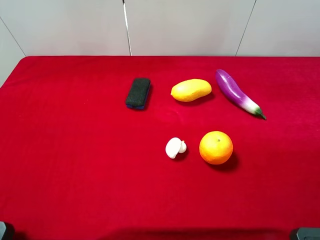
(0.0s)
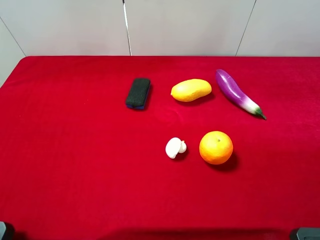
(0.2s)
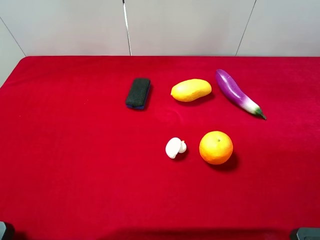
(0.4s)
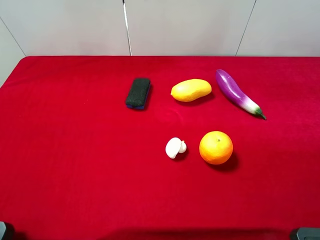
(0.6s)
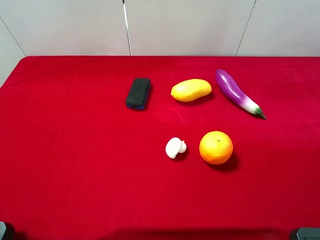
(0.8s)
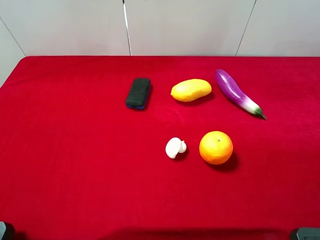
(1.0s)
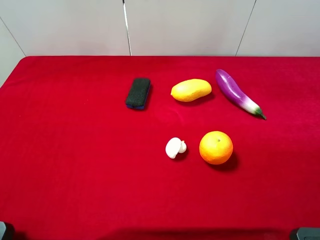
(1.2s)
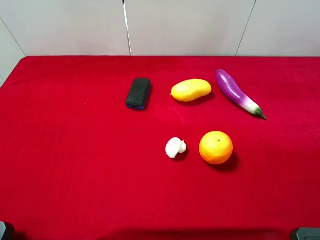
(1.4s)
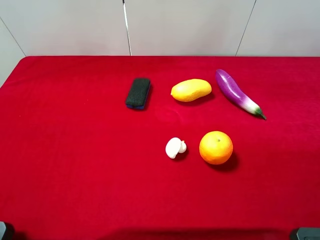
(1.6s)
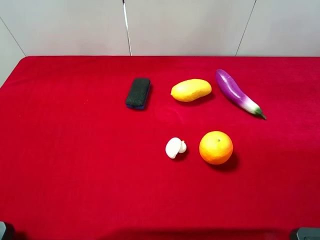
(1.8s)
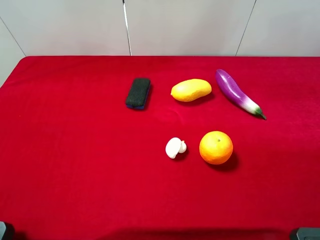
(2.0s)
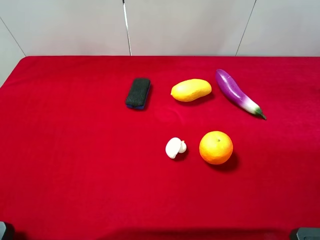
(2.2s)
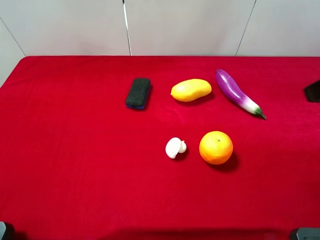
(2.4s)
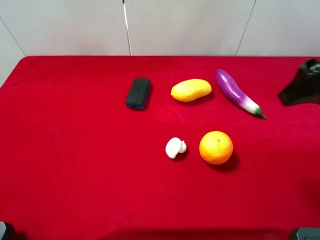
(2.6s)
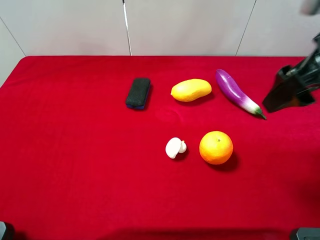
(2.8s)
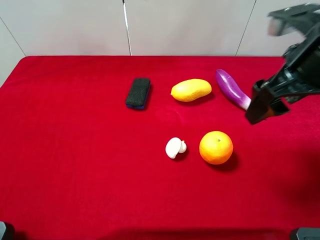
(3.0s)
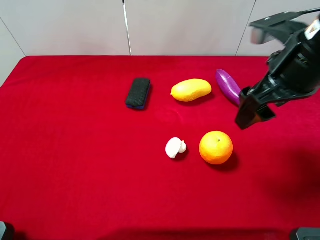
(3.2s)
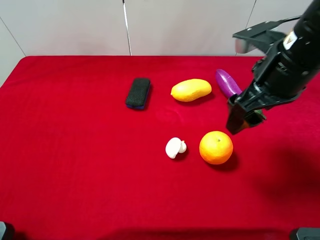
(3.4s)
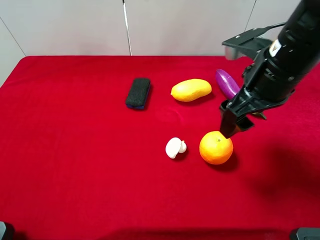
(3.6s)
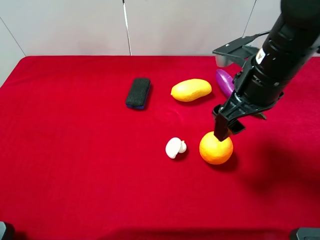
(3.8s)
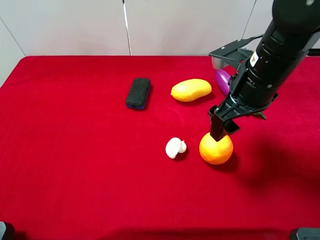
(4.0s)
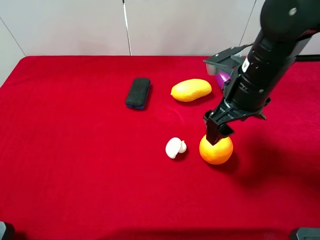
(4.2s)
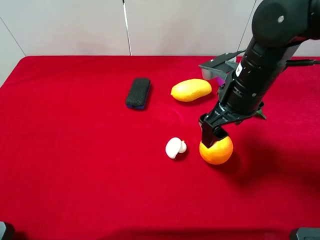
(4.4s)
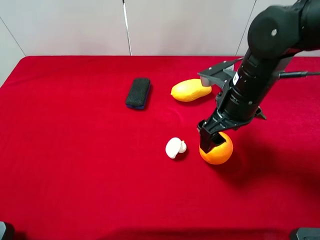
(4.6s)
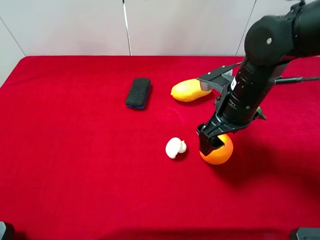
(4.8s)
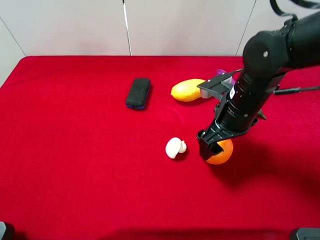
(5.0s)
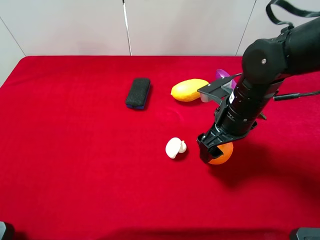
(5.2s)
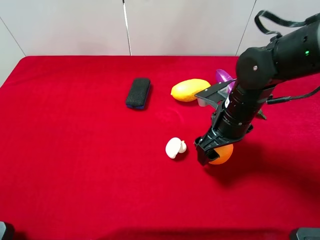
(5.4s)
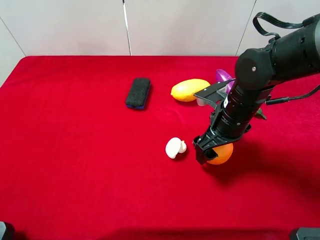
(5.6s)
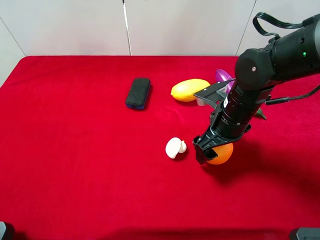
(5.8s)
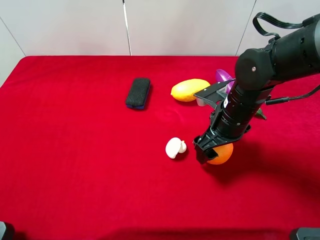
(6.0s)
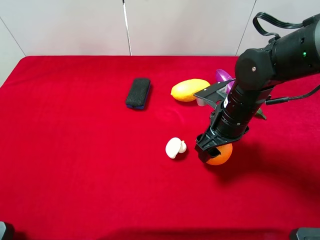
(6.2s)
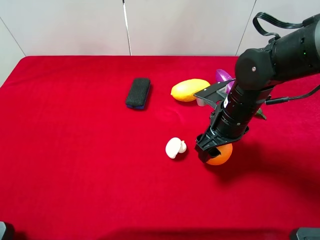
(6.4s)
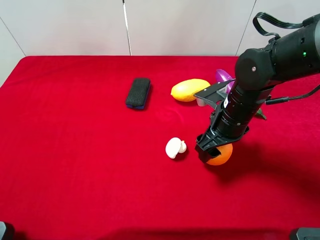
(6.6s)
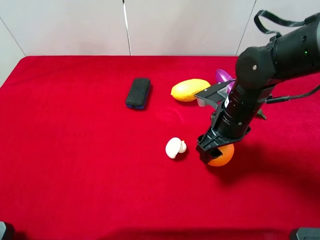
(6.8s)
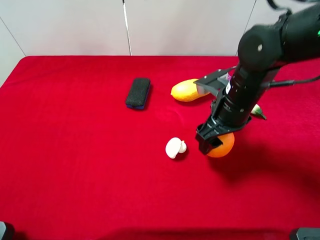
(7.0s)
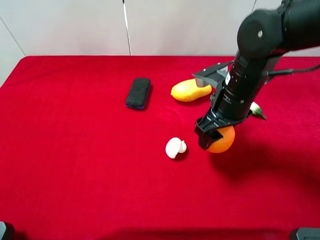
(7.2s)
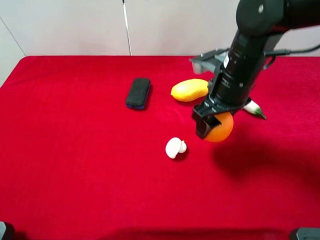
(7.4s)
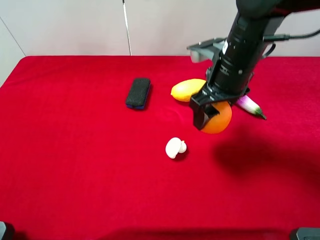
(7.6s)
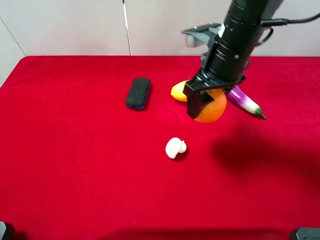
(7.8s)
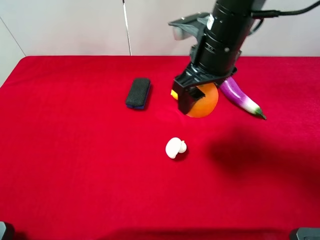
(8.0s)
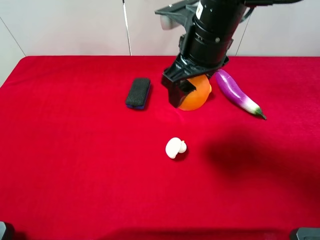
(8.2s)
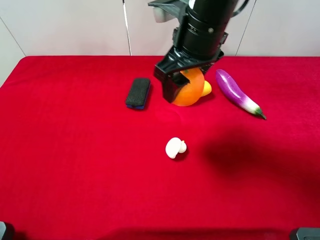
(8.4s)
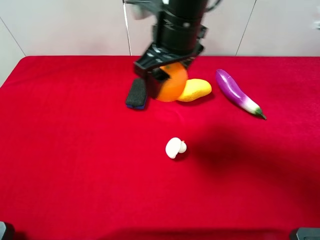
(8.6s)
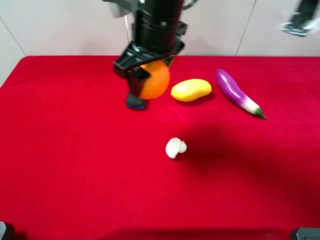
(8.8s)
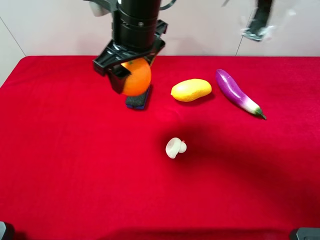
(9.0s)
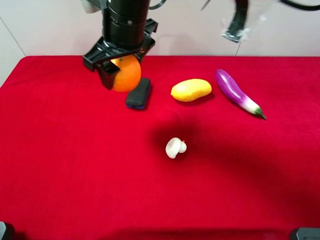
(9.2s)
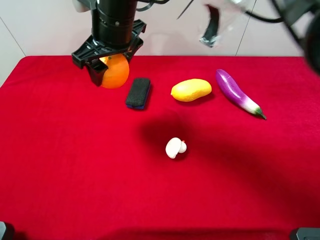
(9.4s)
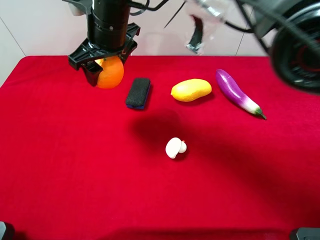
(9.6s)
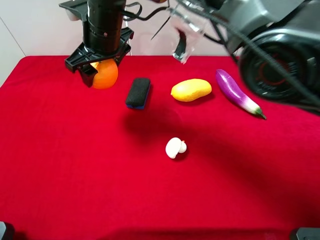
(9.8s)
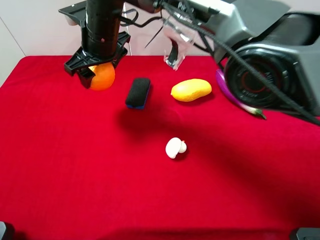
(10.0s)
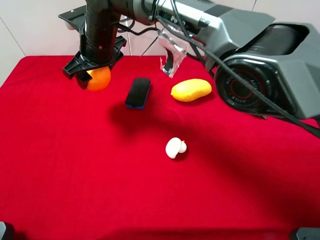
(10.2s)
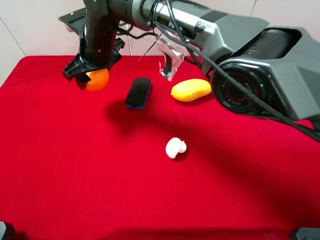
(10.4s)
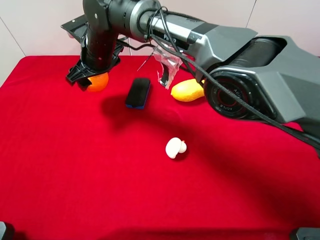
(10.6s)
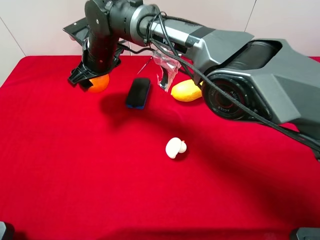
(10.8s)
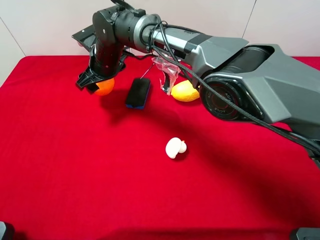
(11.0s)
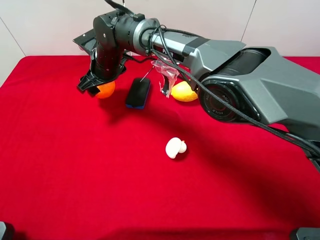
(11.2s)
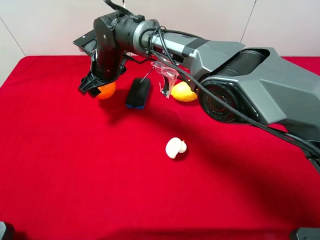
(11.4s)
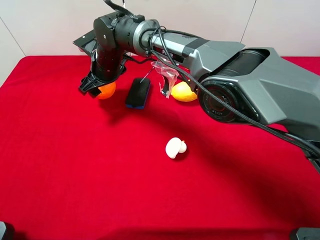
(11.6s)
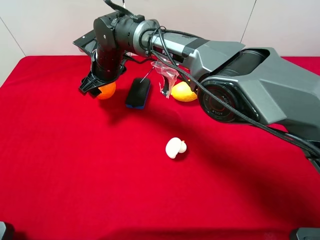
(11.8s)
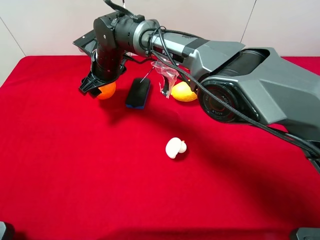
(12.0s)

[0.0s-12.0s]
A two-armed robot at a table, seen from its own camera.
Task of the whole recording: the gripper move the object.
Step, 0.0s to 6.6s: Grasp the orange with the right gripper.
1.6s to 3.0s: The right gripper heads forward and to the left, covering about 20 cm.
3.0s to 4.4s: The right gripper goes approximately 10 cm downward and to the left.
4.4s to 6.0s: The right gripper goes some 5 cm downward, and closes up.
6.0s to 7.6s: The right gripper shifts roughly 10 cm upward, and closes its fingers.
7.6s to 9.0s: The right gripper travels to the left by about 15 cm.
9.0s to 10.4s: The right gripper goes about 15 cm downward, to the left and forward.
10.4s to 12.0s: The right gripper shifts about 5 cm downward.

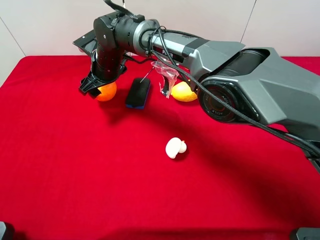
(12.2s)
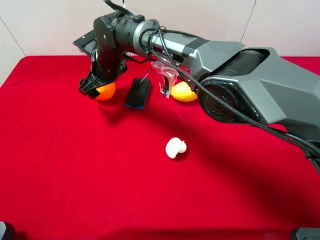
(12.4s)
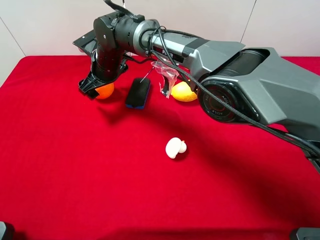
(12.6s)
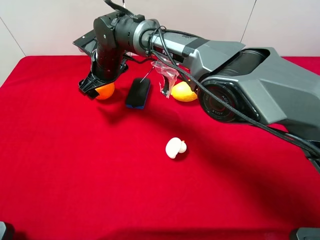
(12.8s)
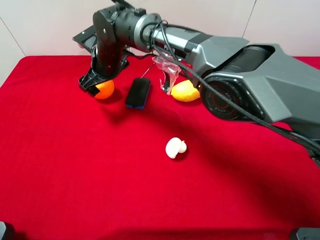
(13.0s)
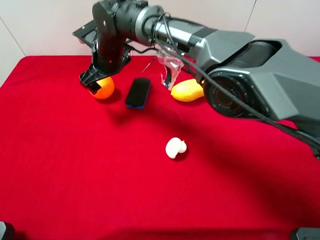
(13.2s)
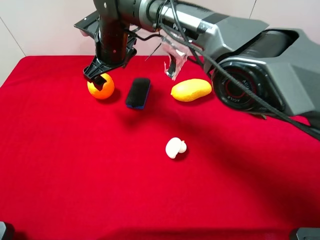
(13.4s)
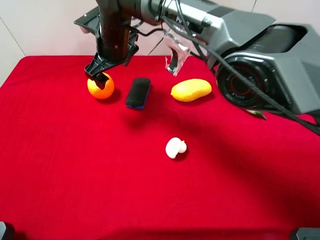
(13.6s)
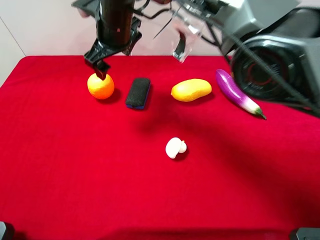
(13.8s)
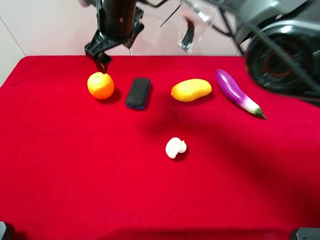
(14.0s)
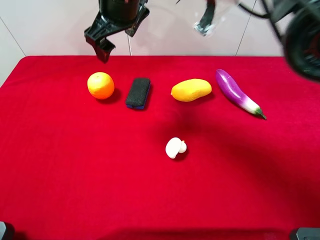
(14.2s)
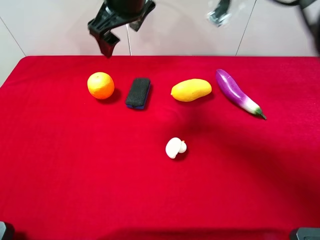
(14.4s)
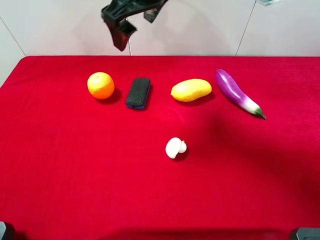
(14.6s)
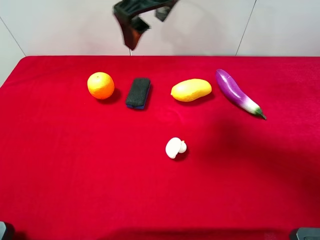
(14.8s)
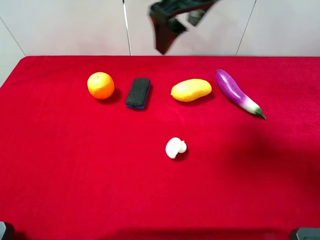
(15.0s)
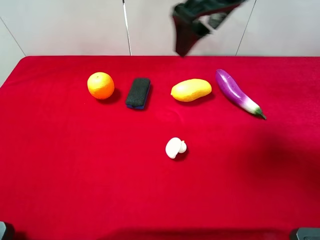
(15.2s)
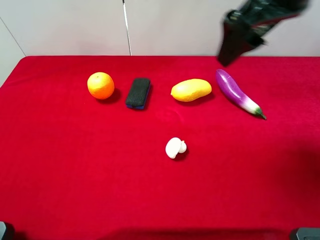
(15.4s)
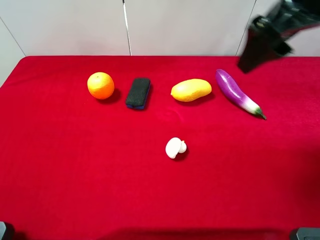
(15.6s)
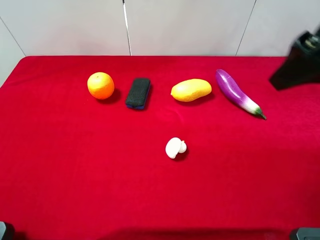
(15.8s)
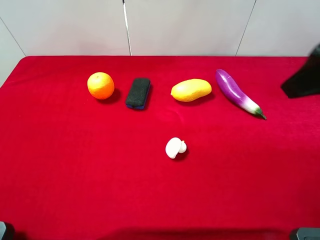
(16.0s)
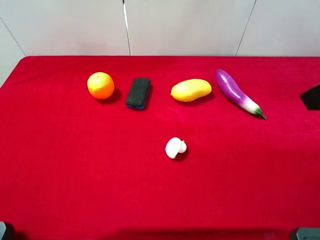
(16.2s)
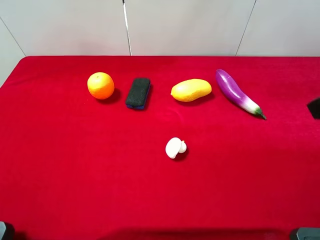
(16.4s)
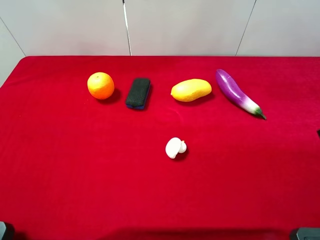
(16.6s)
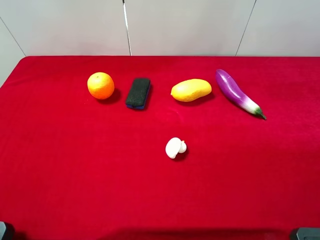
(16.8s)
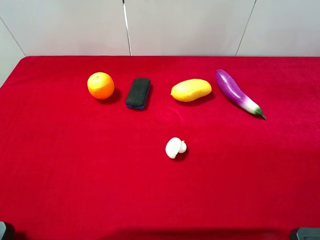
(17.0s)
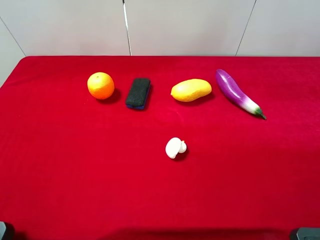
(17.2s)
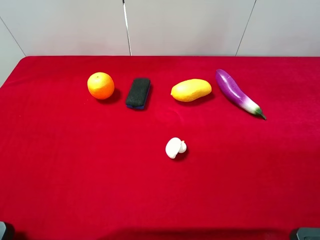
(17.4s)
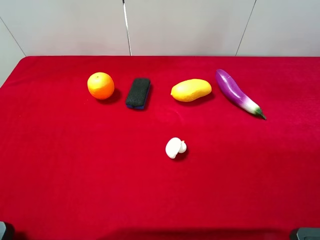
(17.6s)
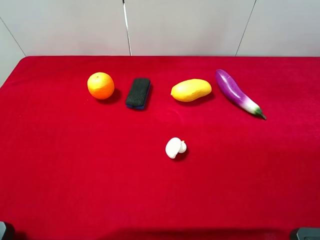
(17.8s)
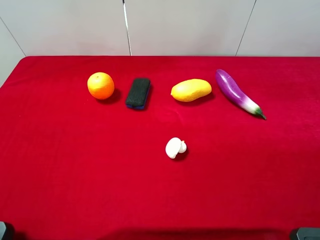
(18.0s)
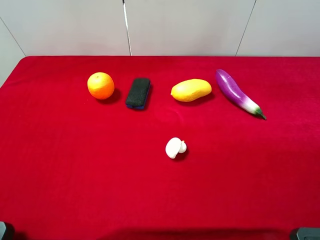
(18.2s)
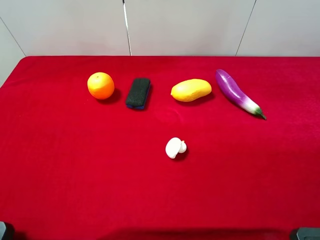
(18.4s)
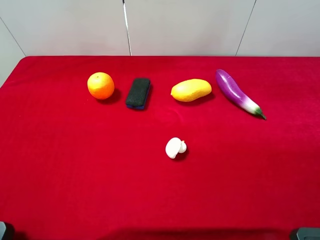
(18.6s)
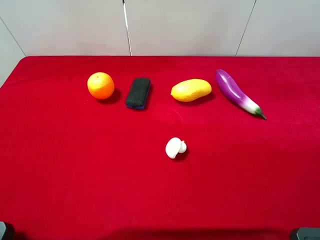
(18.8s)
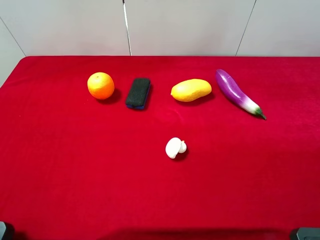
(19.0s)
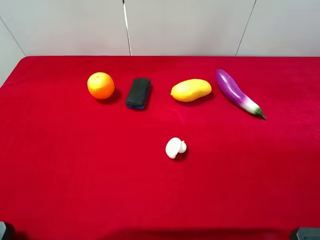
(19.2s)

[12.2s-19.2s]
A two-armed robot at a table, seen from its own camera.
Task of the whole recording: the gripper move the object.
12.2s to 13.6s: The right gripper goes about 5 cm upward, and opens up.
13.6s to 15.0s: The right gripper shifts about 25 cm upward, to the right and backward.
15.0s to 16.4s: The right gripper heads to the right and backward, covering roughly 25 cm.
17.8s to 19.2s: Both grippers stay put.
